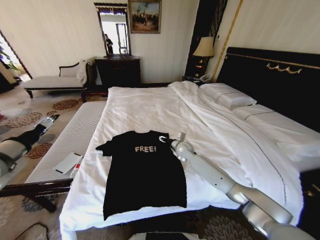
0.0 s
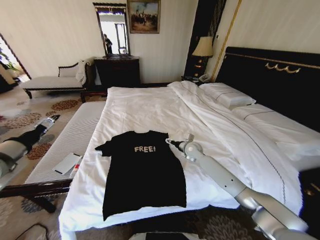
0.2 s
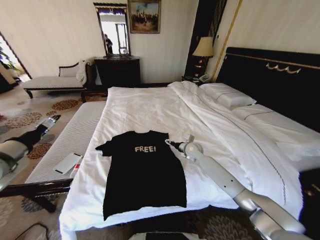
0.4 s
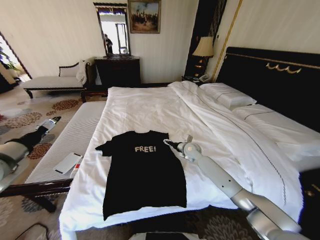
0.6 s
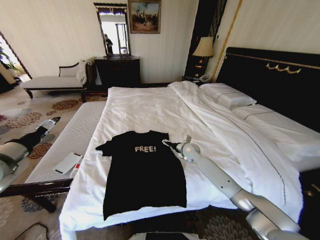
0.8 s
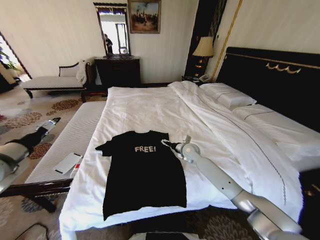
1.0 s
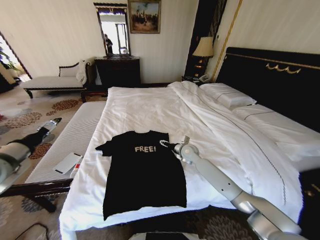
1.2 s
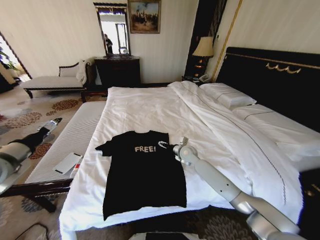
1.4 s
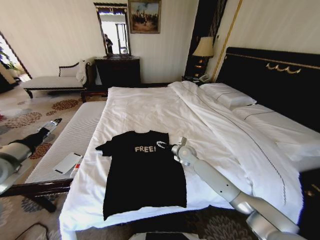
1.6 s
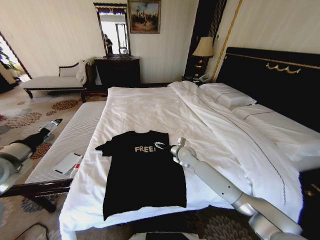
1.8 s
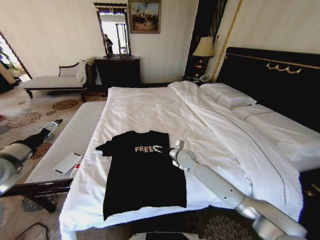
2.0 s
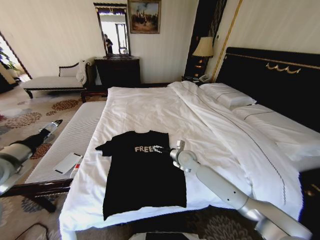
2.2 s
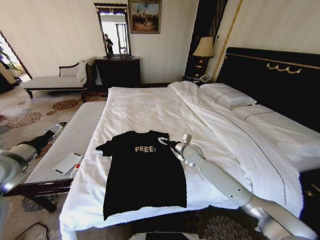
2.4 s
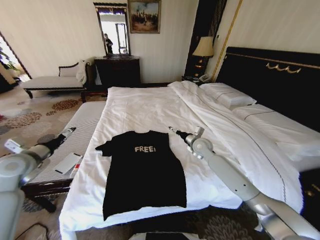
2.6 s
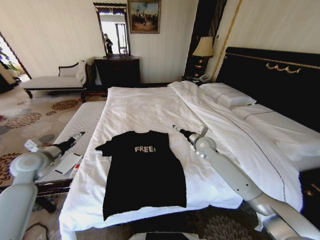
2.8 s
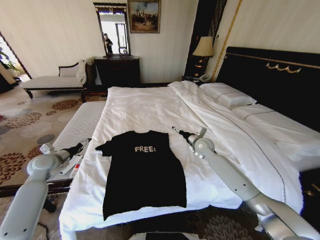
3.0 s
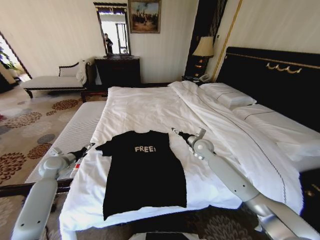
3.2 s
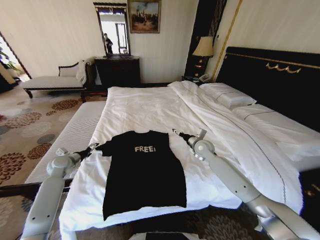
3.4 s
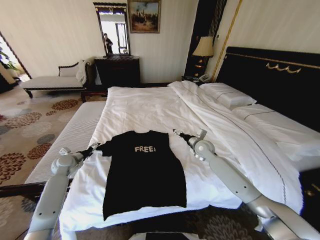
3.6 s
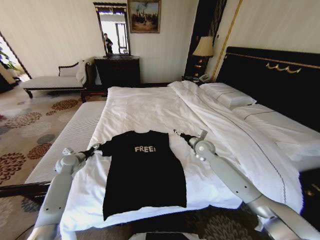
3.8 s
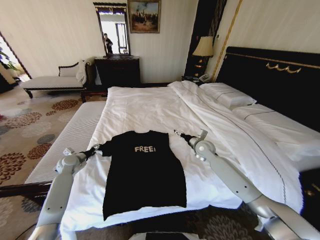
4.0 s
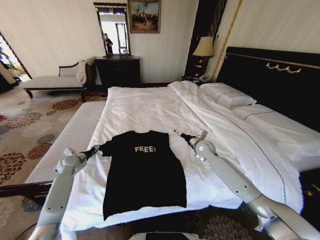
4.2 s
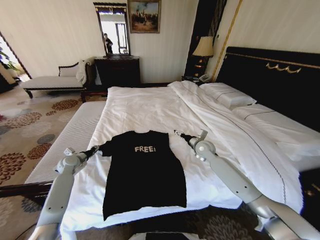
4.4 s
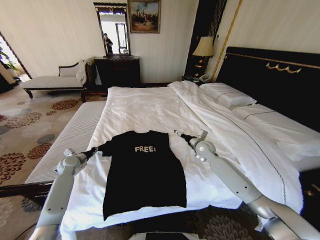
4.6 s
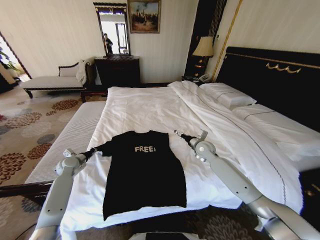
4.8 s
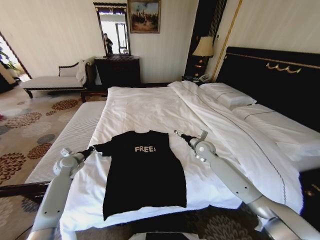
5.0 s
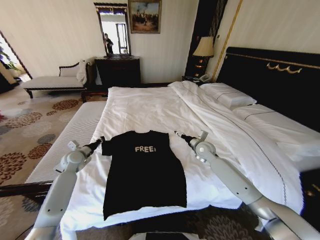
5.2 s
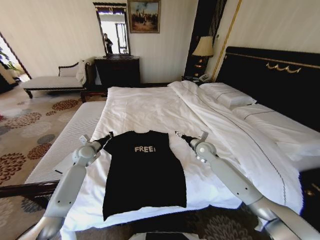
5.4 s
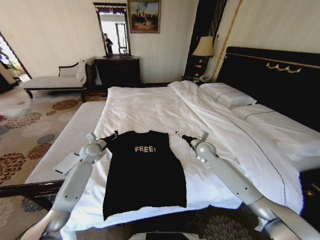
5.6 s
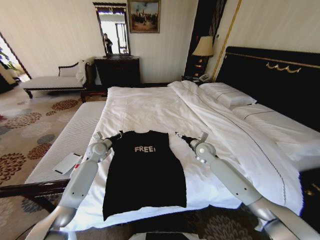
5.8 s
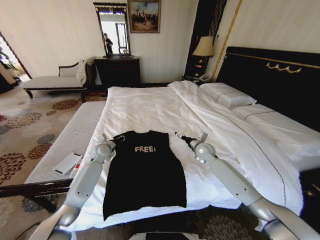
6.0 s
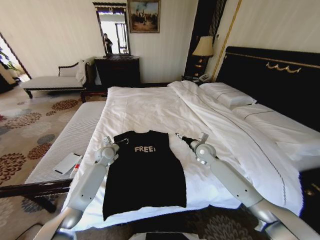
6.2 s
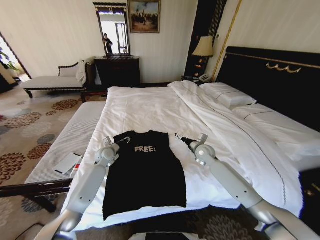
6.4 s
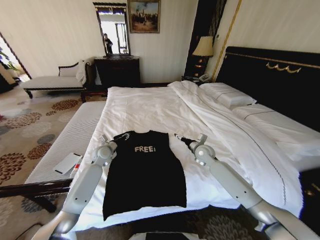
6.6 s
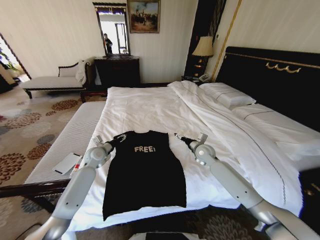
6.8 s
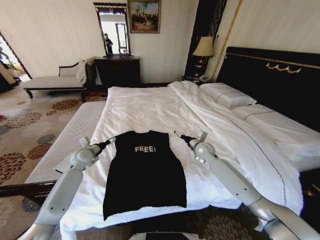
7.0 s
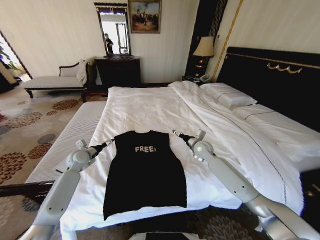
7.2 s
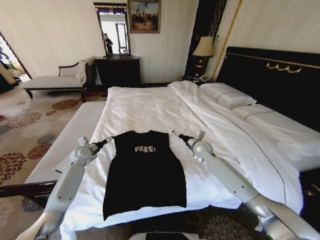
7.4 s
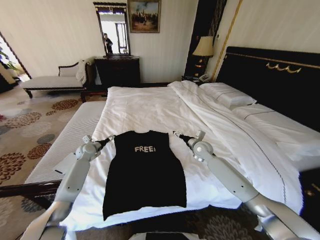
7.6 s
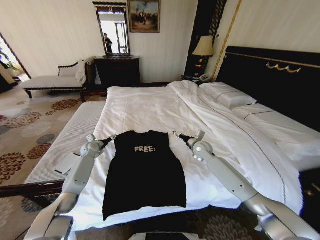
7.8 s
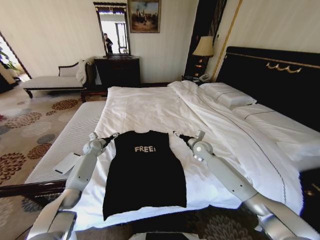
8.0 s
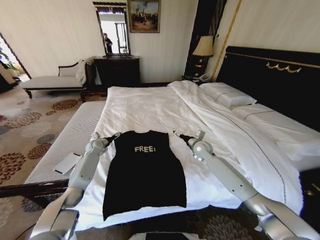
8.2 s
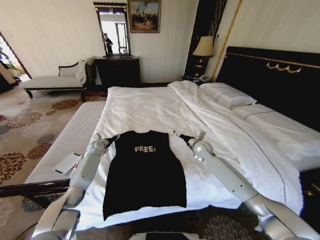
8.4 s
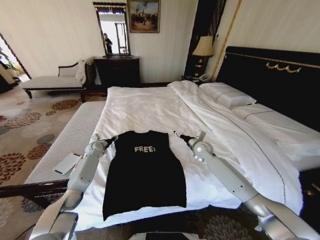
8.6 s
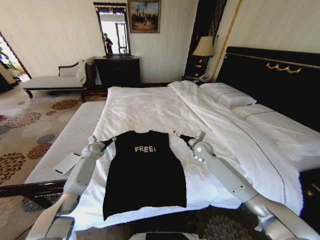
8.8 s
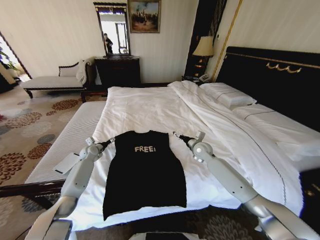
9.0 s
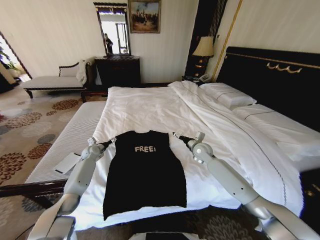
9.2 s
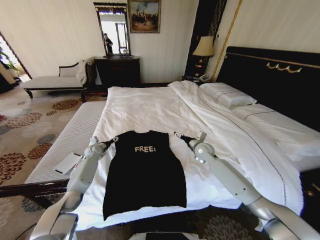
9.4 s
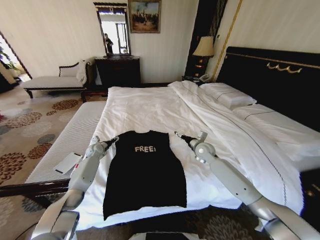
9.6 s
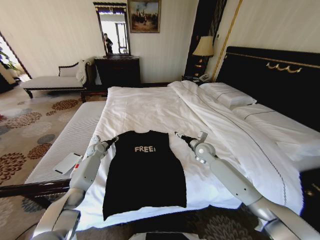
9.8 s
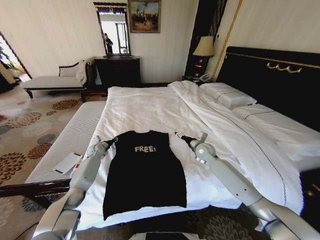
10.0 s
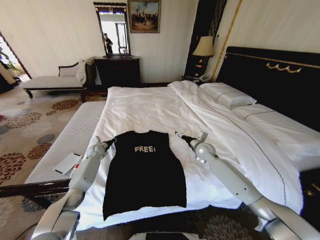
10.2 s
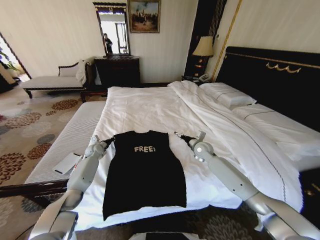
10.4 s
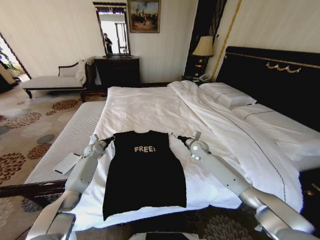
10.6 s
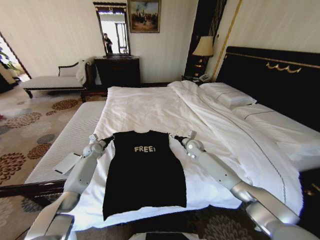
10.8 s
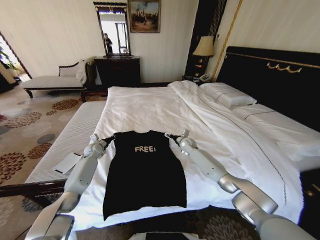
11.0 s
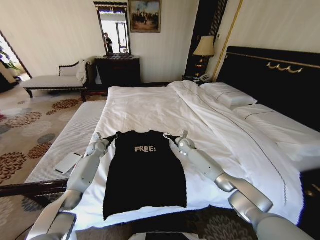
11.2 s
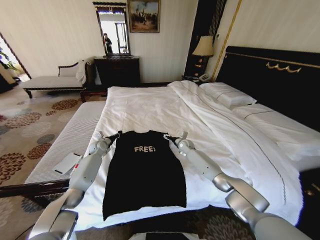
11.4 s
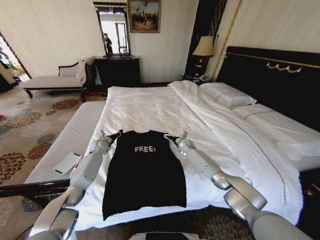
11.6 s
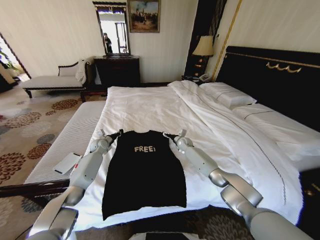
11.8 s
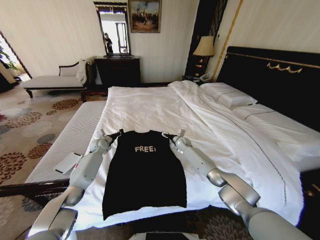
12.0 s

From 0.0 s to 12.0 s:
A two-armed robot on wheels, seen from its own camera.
Task of the whole recording: Fold the clothes on the bed.
From 0.0 s to 1.6 s: The grippers move only a little.
From 1.6 s to 3.0 s: The left gripper is displaced downward and forward by approximately 20 cm. The right gripper moves to the right, approximately 10 cm.
From 3.0 s to 4.4 s: The left gripper is displaced downward and forward by roughly 10 cm, and closes its fingers.
From 4.4 s to 6.0 s: The left gripper moves to the right, some 15 cm, and closes its fingers.
From 6.0 s to 7.6 s: The left gripper heads to the left, covering about 10 cm, and opens.
From 7.6 s to 9.0 s: The grippers move only a little.
From 9.0 s to 10.4 s: The left gripper closes its fingers.
From 10.4 s to 12.0 s: The right gripper goes about 15 cm forward, downward and to the left. The left gripper shifts by some 5 cm.

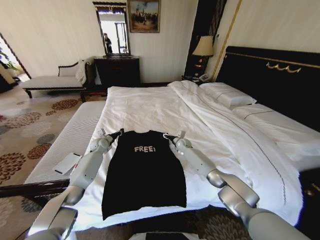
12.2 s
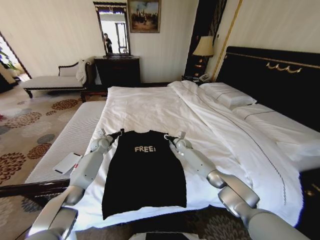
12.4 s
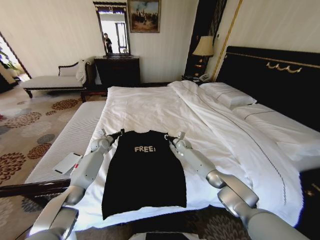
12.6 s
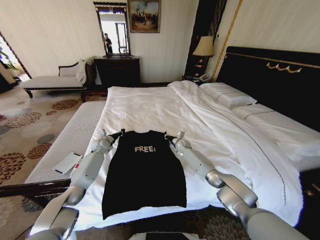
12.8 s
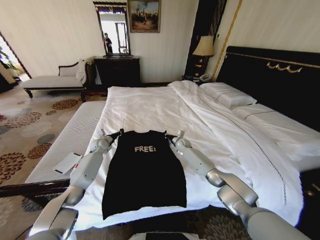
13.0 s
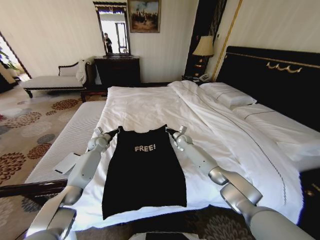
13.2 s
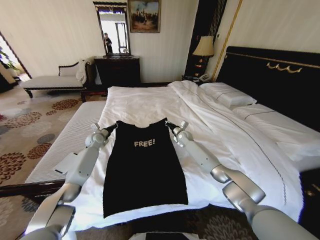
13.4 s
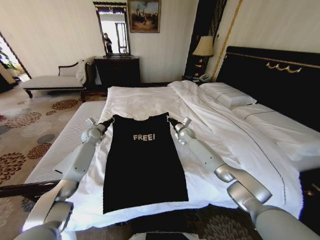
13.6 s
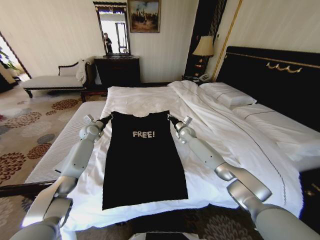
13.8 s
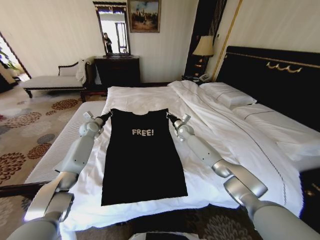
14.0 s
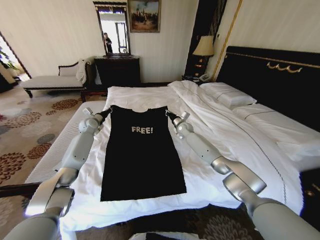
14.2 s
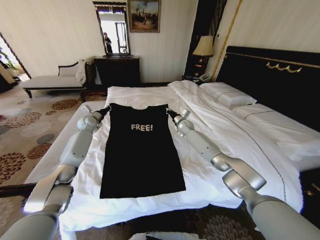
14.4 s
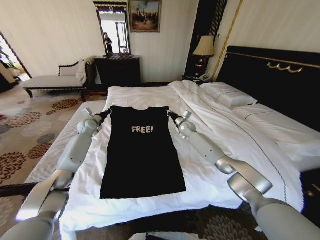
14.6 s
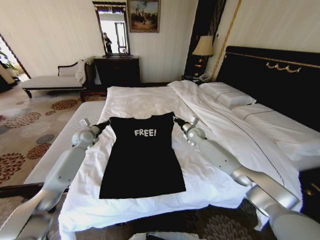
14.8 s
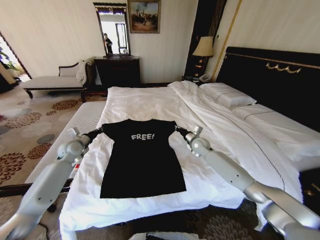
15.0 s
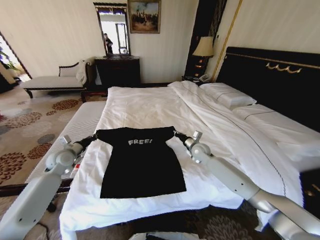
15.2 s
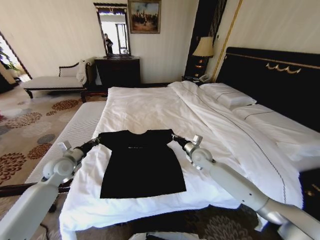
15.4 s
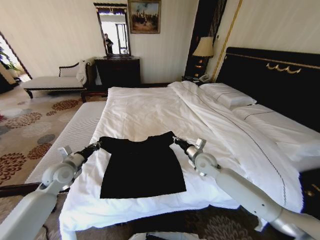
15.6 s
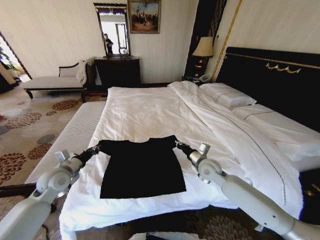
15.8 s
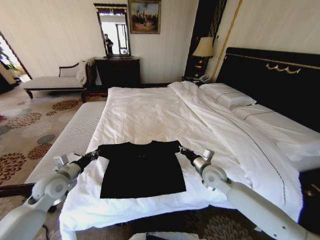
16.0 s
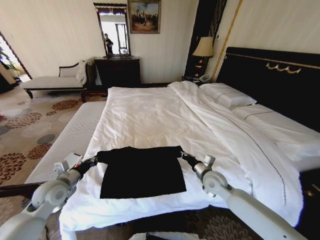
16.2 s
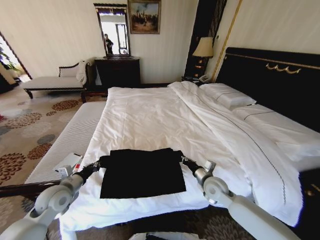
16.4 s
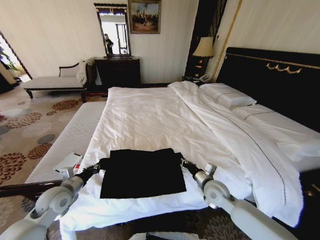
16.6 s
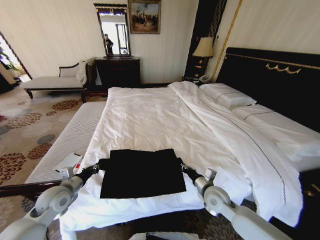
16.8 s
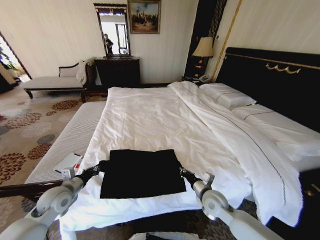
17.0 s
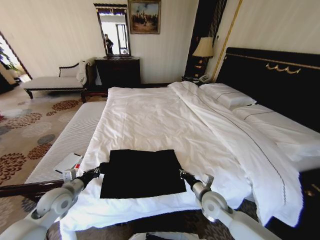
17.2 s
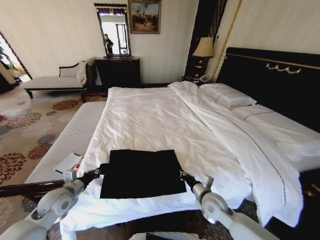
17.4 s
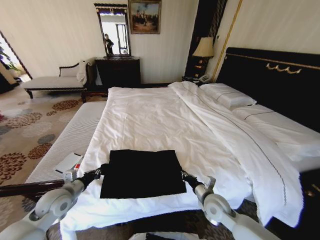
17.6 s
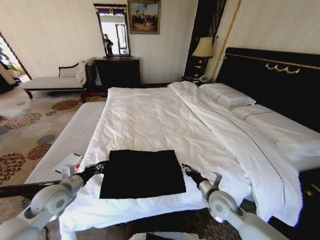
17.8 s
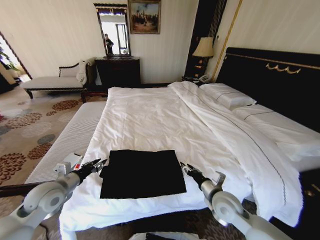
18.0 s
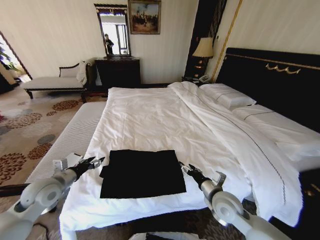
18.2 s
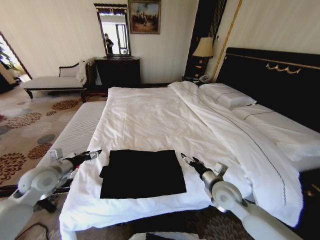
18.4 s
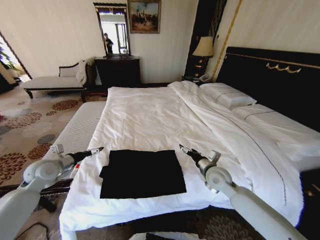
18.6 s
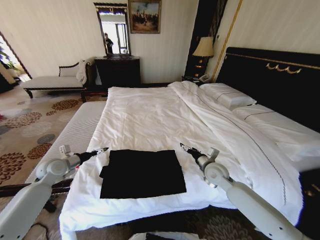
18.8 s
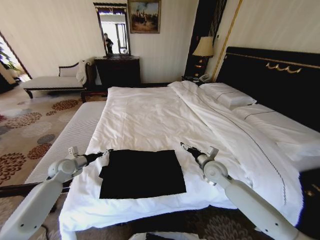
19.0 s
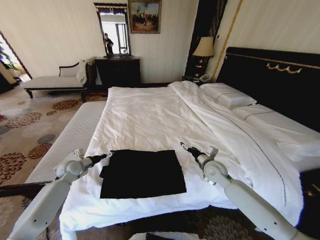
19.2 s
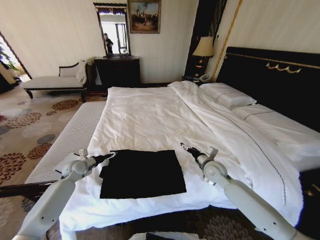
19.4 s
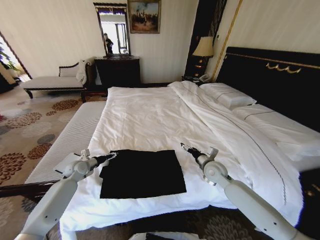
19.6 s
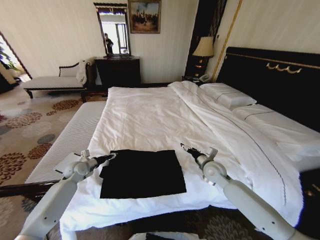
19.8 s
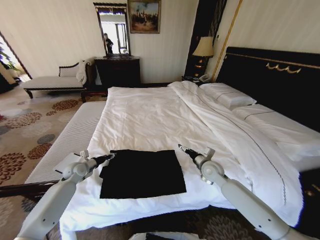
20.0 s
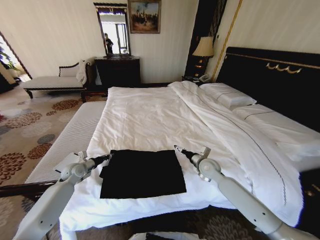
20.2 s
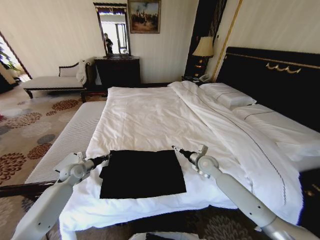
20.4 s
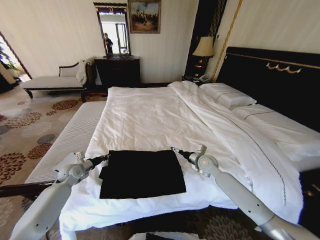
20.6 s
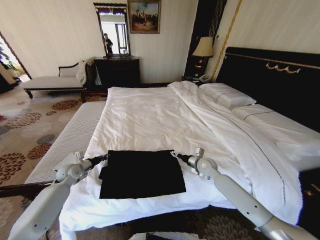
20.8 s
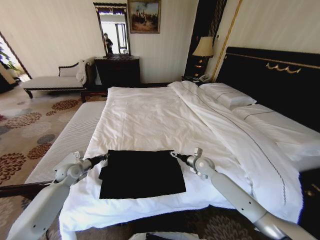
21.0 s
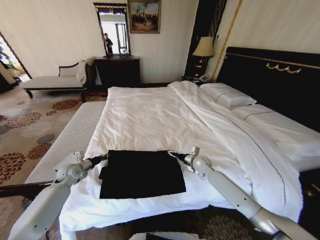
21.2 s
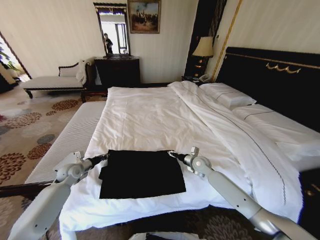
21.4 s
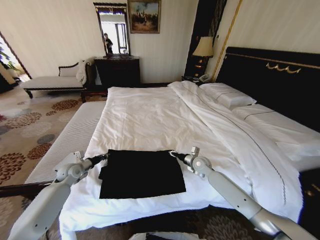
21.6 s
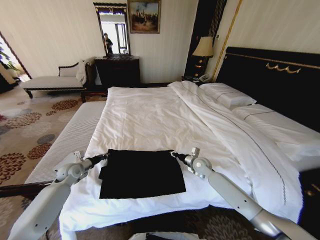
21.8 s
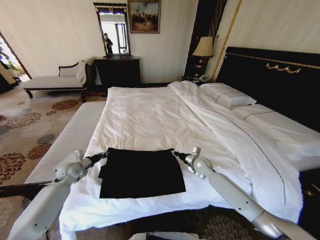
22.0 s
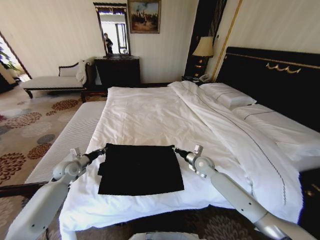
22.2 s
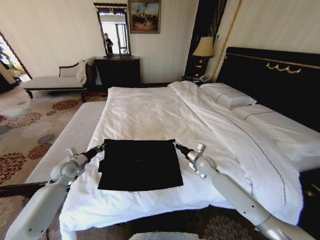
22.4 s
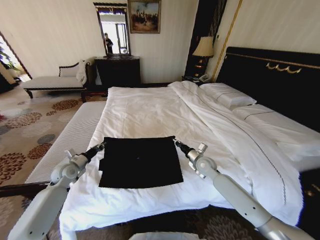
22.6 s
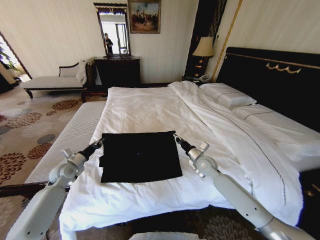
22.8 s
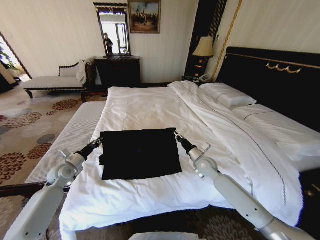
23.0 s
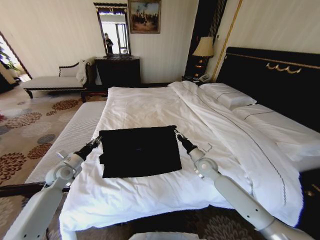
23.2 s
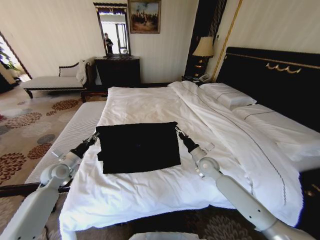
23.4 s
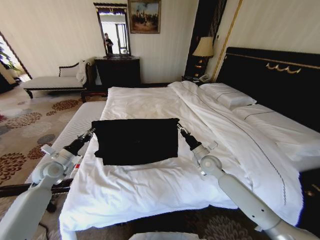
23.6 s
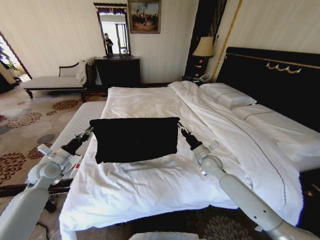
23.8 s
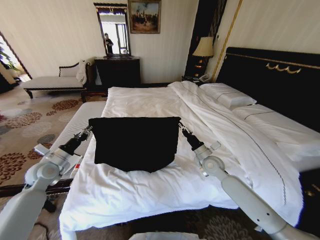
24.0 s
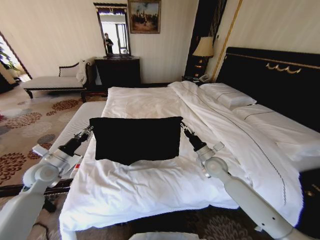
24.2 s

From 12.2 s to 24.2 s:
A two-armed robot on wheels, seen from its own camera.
Task of the whole recording: Fold the clothes on the bed.
From 12.2 s to 13.8 s: The grippers both shift upward by approximately 10 cm. The right gripper closes.
From 13.8 s to 15.2 s: The two grippers go some 15 cm backward.
From 15.2 s to 16.6 s: Both grippers travel together backward, approximately 15 cm.
From 16.6 s to 18.2 s: The right gripper travels backward by approximately 5 cm, and opens. Meanwhile the left gripper heads upward, covering about 5 cm, and opens its fingers.
From 18.2 s to 19.8 s: The left gripper goes roughly 20 cm forward and downward, while the right gripper heads forward, covering some 15 cm.
From 19.8 s to 21.2 s: The left gripper closes its fingers. Meanwhile the right gripper shifts some 5 cm forward.
From 21.2 s to 22.6 s: The right gripper closes up.
From 22.6 s to 24.2 s: The right gripper moves approximately 5 cm; the left gripper shifts approximately 10 cm upward.
